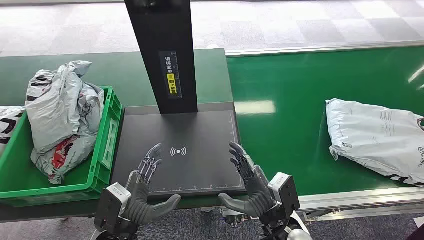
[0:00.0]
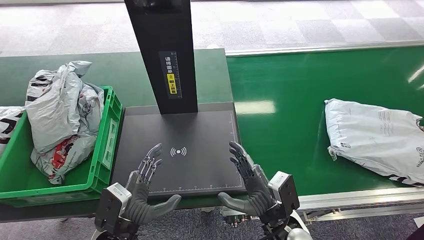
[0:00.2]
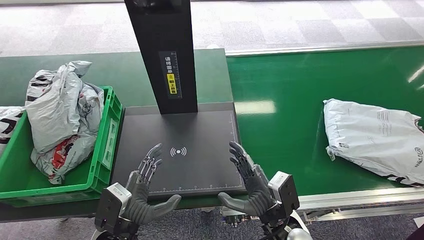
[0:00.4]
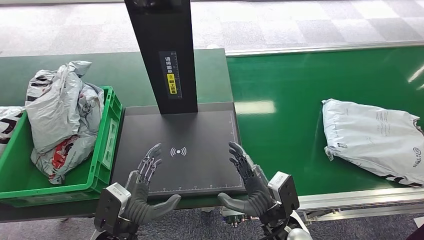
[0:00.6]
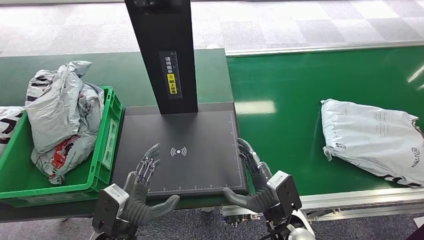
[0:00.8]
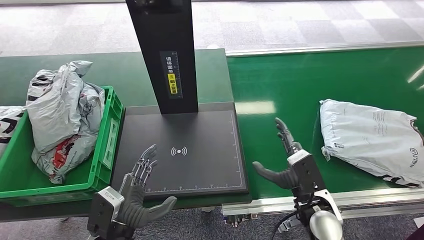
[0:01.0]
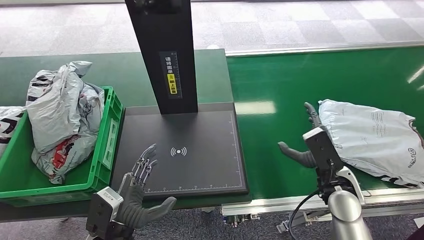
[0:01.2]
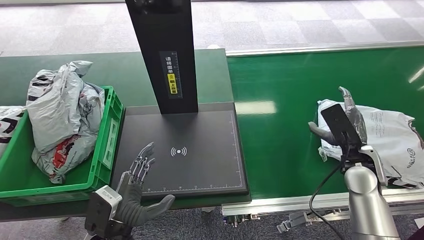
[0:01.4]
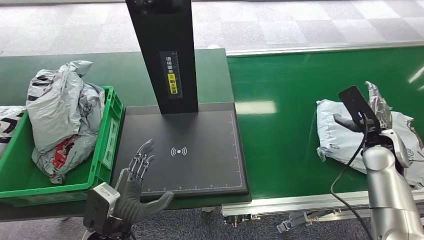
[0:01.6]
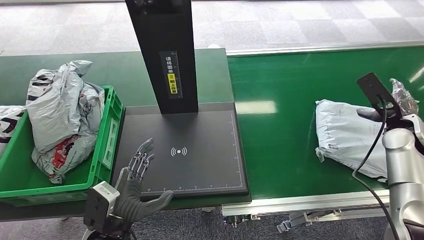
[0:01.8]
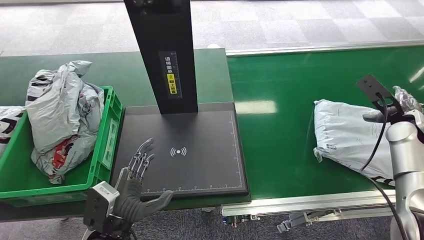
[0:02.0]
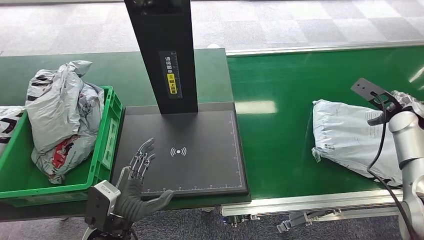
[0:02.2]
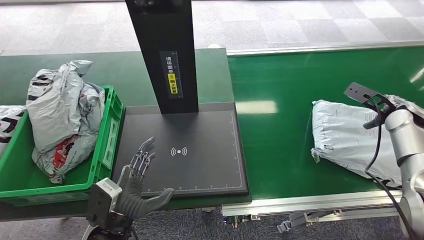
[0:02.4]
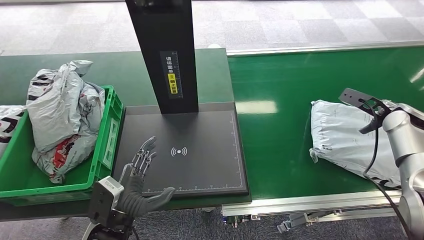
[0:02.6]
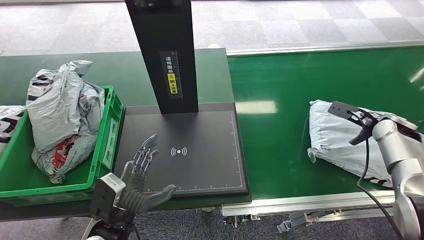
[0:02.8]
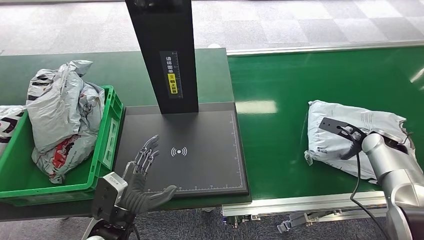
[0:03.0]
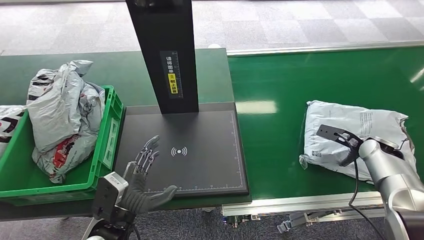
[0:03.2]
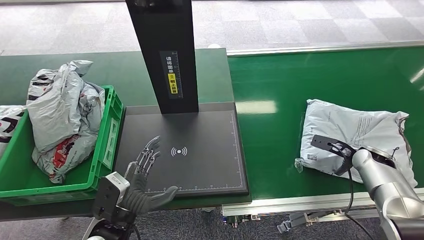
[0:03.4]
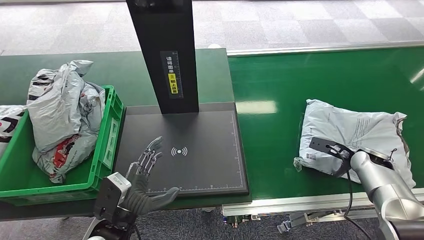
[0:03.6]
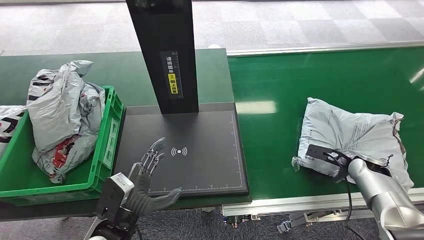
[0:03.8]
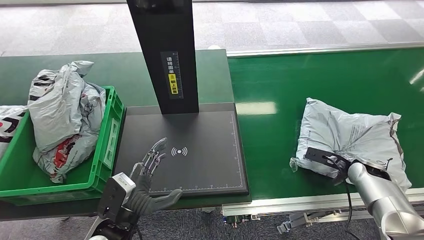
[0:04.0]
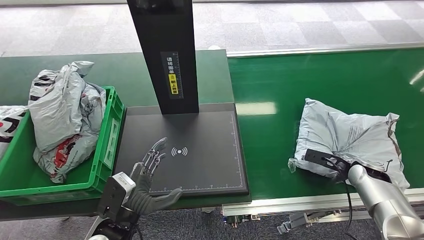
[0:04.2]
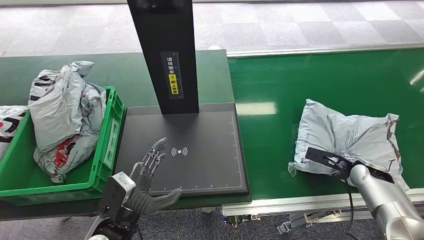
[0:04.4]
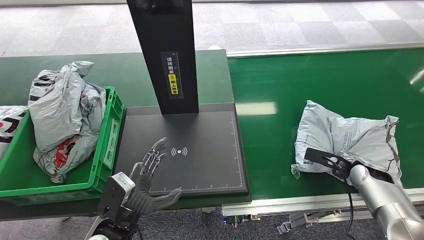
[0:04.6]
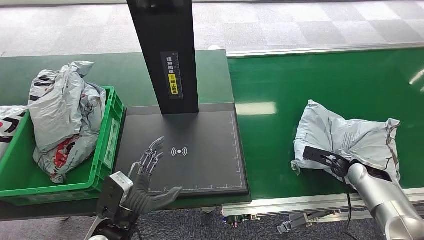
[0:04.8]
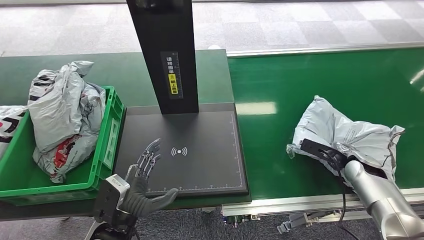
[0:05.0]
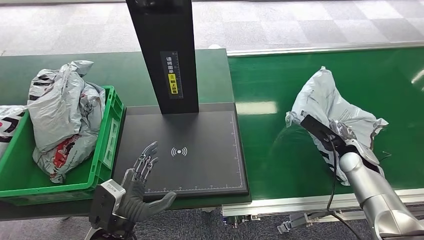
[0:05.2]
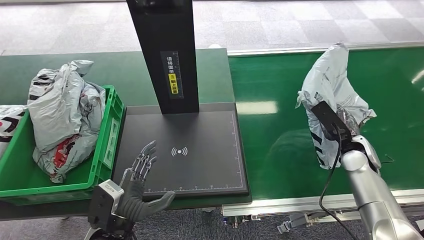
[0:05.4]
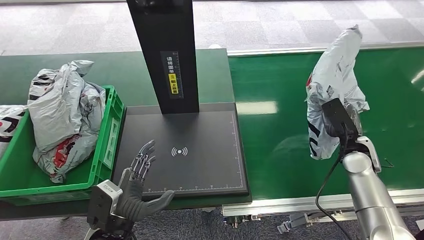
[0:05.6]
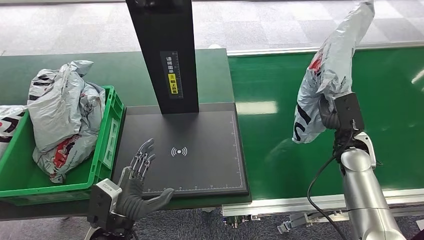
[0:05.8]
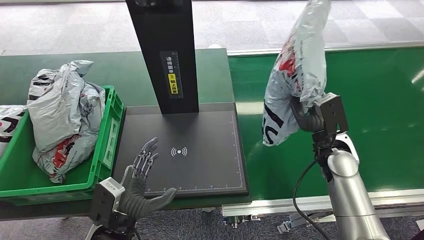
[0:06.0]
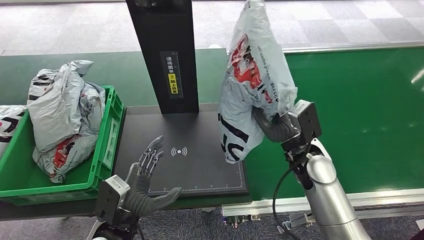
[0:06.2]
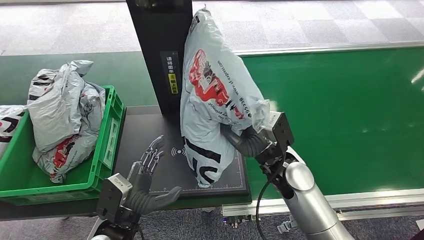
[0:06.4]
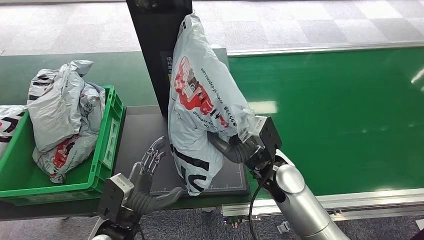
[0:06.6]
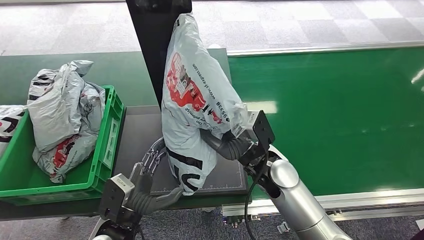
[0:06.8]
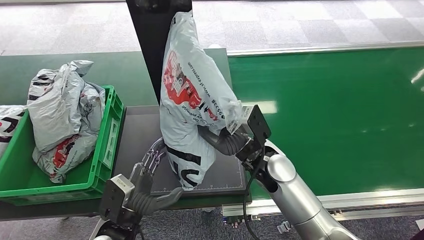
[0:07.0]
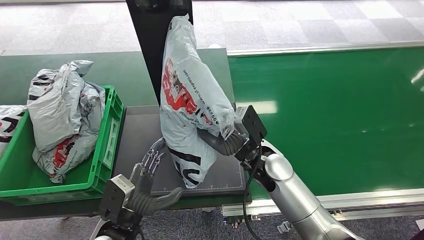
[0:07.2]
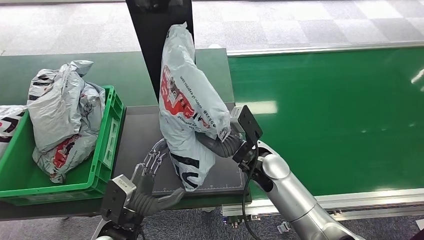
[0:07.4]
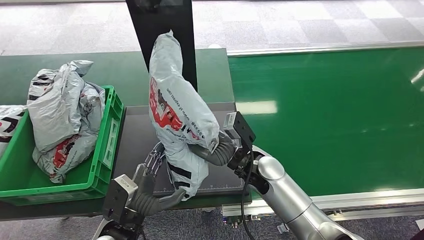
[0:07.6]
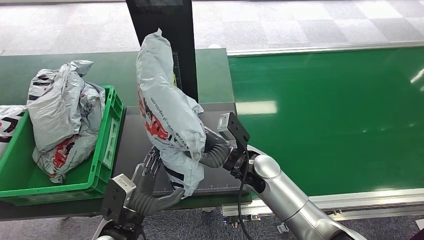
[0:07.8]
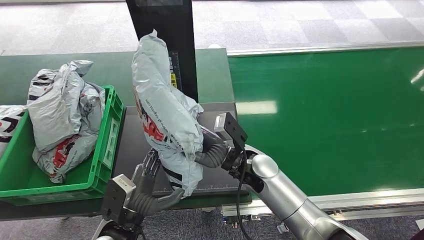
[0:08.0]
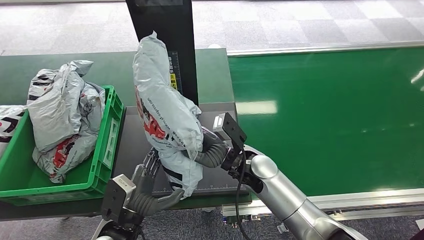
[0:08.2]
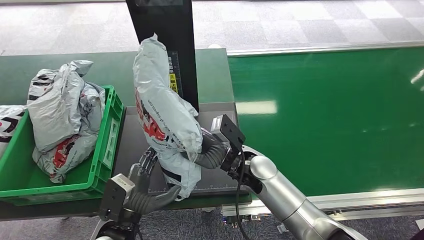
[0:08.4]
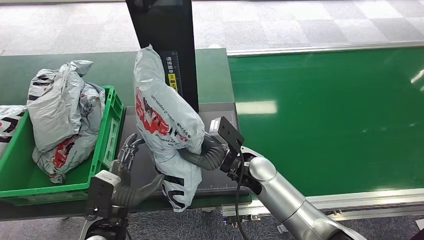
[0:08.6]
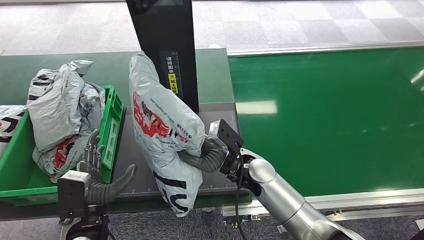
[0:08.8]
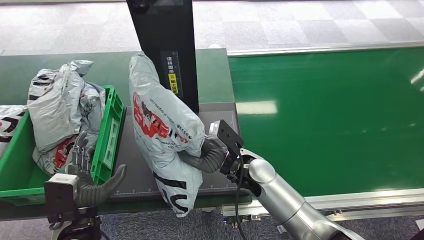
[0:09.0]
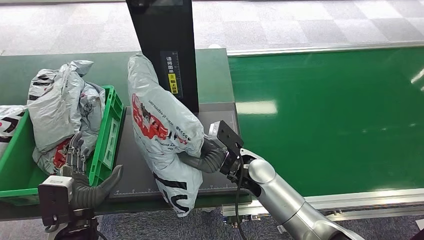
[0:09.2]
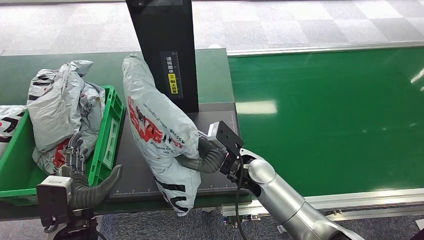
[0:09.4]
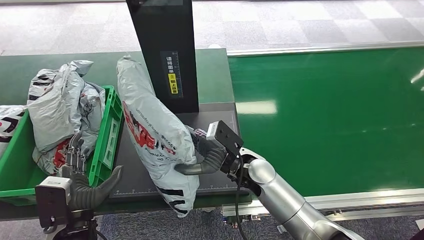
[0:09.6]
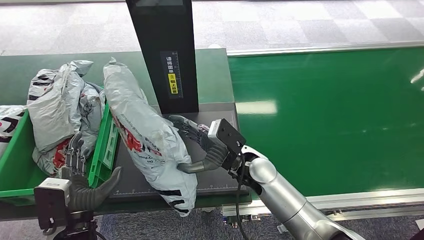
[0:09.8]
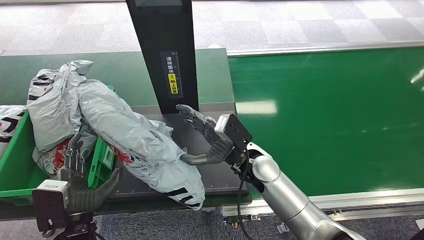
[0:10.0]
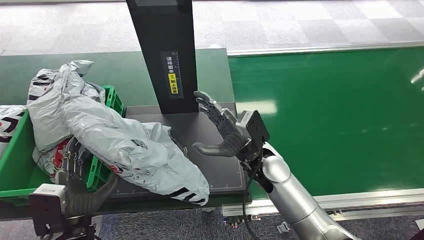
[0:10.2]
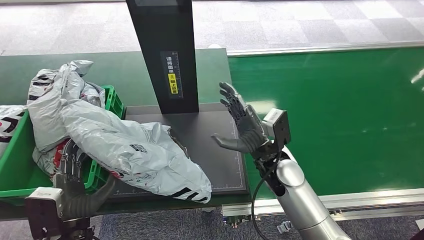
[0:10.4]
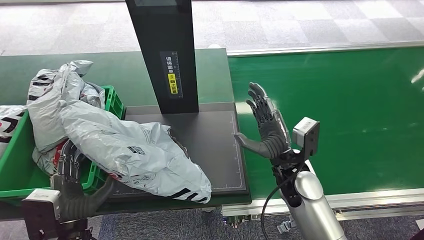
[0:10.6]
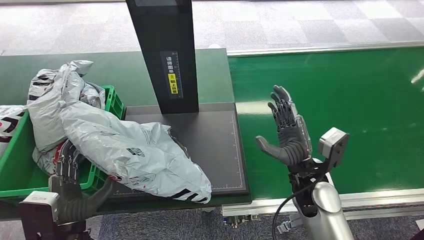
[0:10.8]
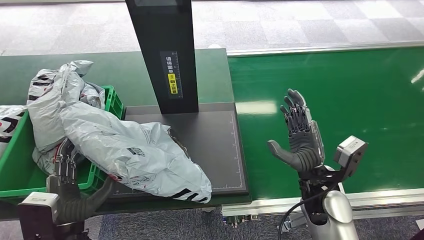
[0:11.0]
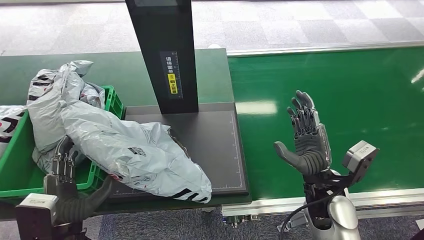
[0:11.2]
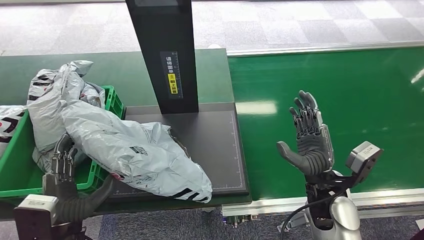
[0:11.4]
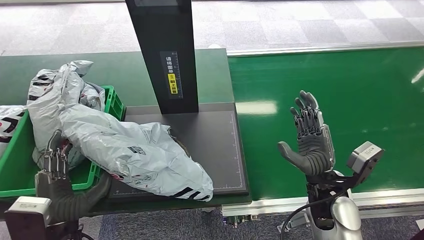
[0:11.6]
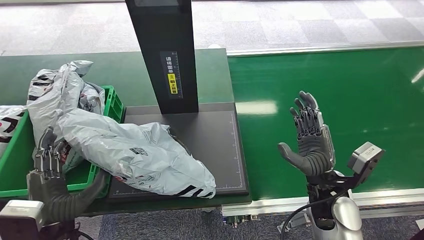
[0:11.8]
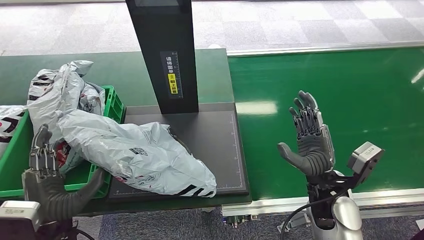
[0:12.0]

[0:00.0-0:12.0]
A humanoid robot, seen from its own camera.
Step, 0:00.0 to 0:05.6: Pick up the package from the conveyor belt.
Step, 0:05.8 to 0:11.6: Place the package onto the inbound machine.
0:01.6 to 0:03.0: The right hand travels to the right by roughly 5 cm.
0:03.0 to 0:04.4: The right hand travels downward and backward by about 10 cm.
0:07.6 to 0:09.0: The left hand moves to the left, approximately 10 cm.
0:10.4 to 0:12.0: The right hand shifts about 10 cm to the right and backward.

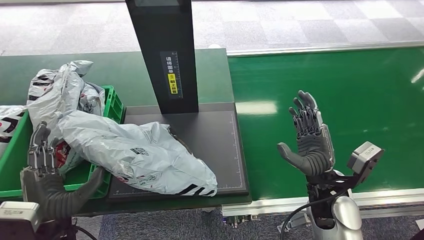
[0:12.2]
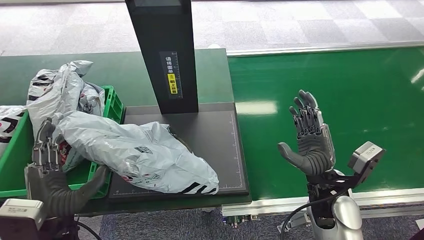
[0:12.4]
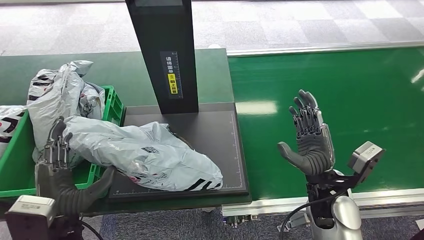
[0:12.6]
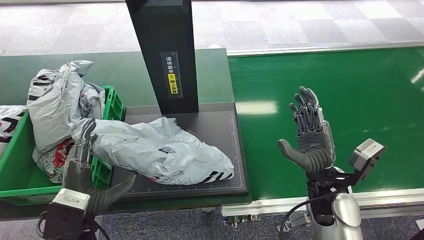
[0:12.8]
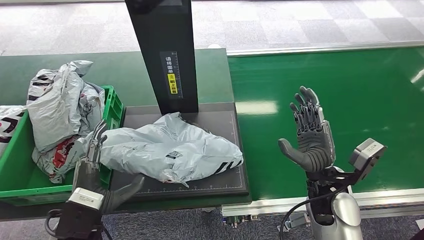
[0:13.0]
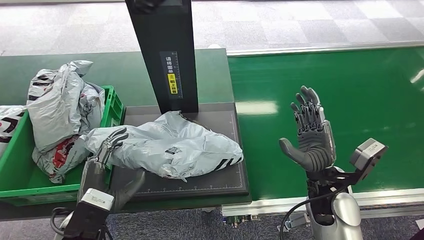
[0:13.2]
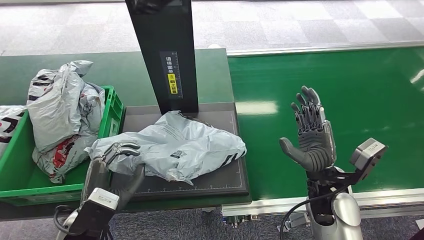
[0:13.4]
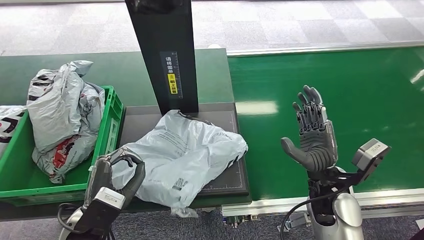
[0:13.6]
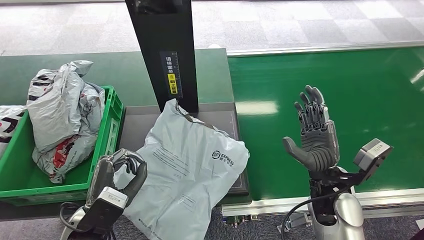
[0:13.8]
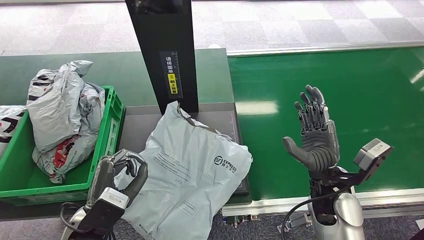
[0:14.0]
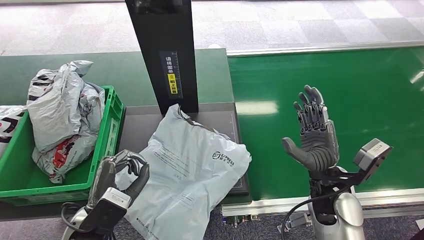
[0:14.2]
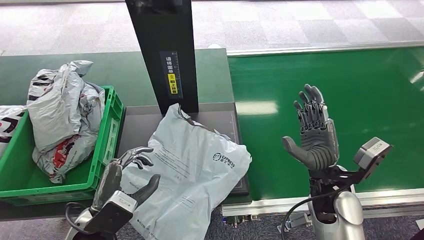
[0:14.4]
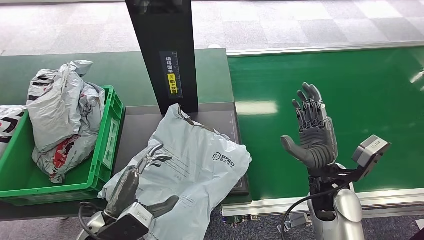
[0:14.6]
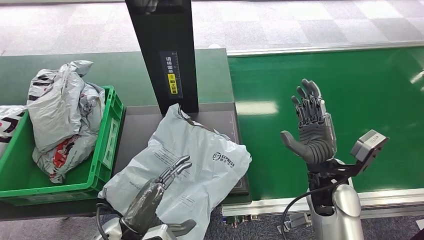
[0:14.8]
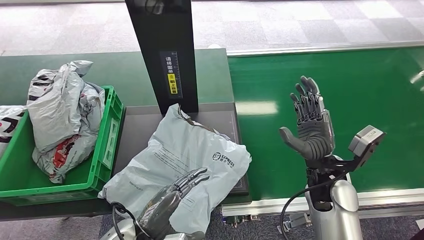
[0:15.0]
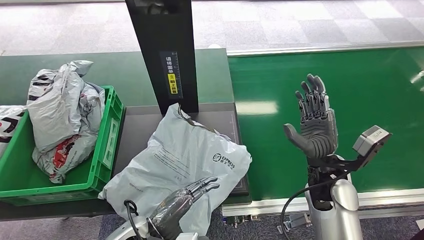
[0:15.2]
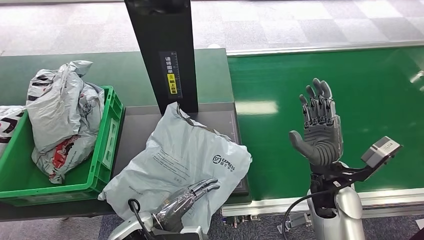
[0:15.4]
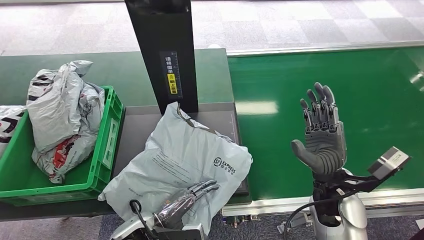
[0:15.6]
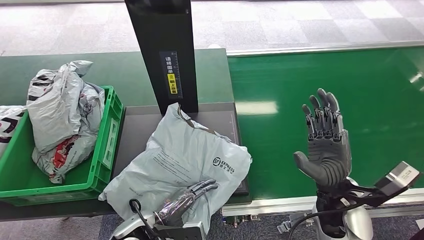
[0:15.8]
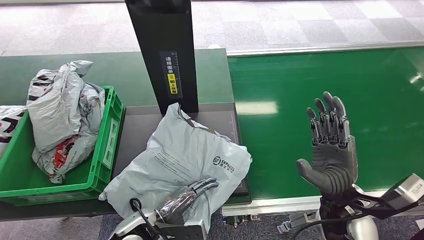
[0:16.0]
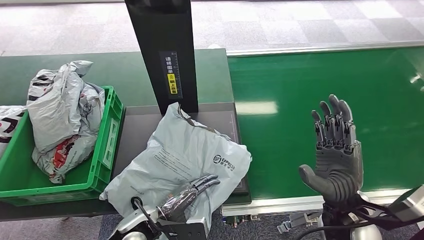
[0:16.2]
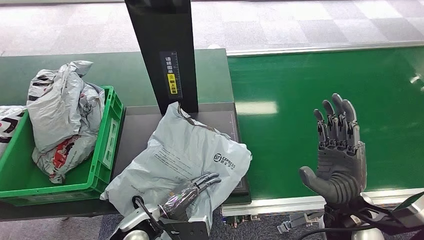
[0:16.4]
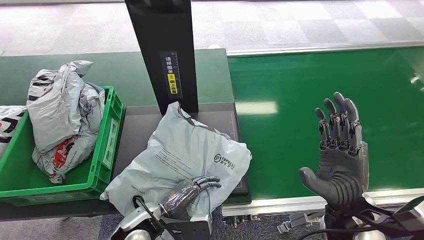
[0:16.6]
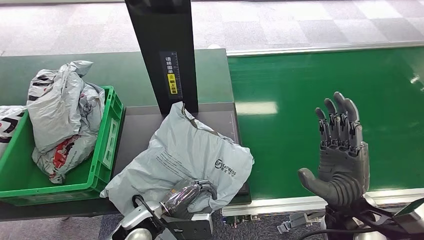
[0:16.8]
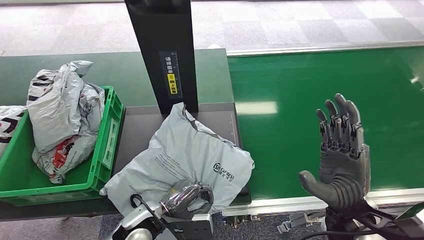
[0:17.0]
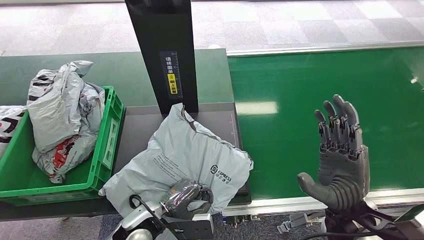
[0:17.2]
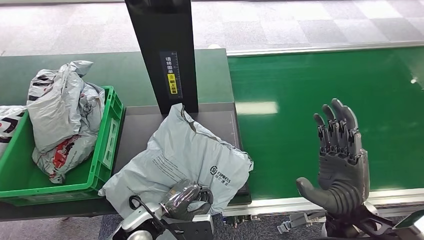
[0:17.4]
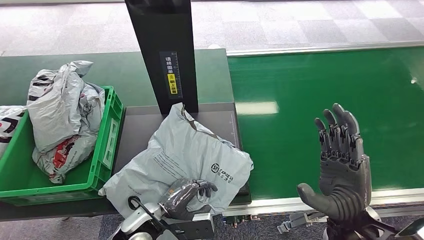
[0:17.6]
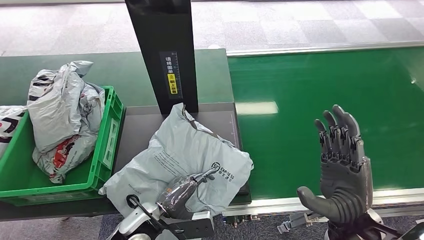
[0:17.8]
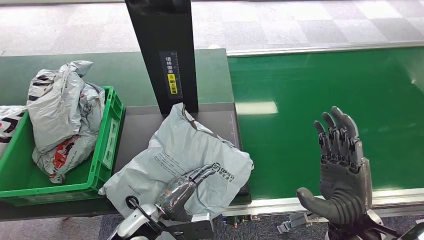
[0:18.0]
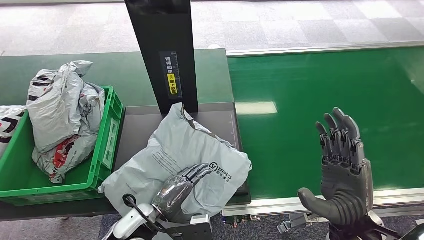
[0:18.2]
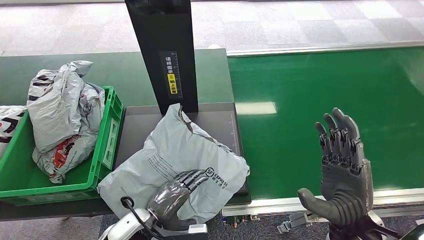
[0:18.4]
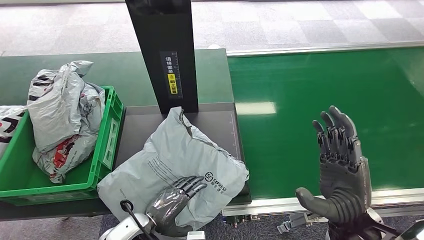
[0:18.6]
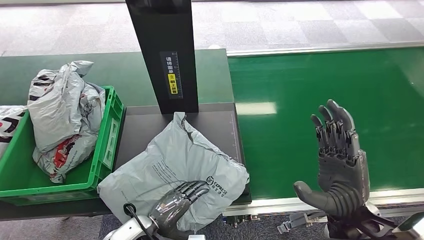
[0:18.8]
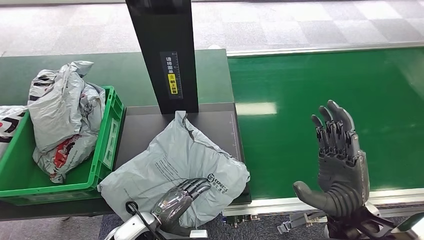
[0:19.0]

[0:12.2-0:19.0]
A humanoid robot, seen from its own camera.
0:13.6 to 0:15.0: The left hand moves to the right, approximately 5 cm.
0:15.0 to 0:16.2: The left hand travels downward by about 5 cm. The right hand shifts approximately 5 cm backward.
0:16.2 to 0:17.6: The hands stay close to where they were, moving slightly.
0:17.6 to 0:19.0: There are only small adjustments of the hands.
